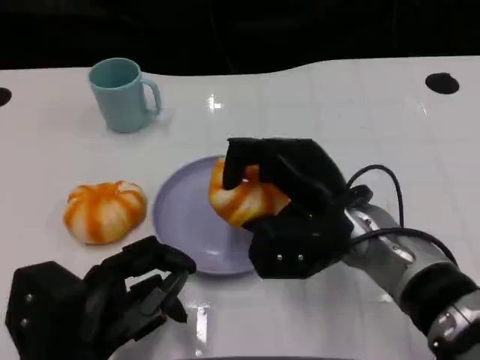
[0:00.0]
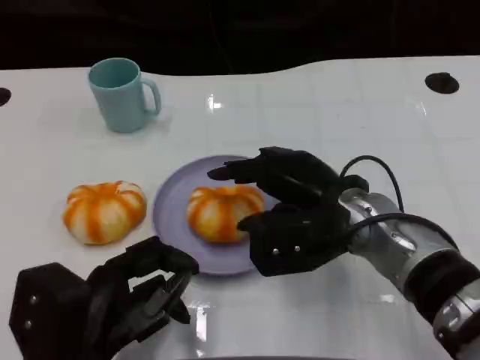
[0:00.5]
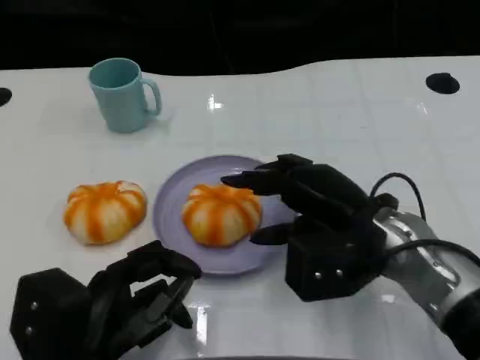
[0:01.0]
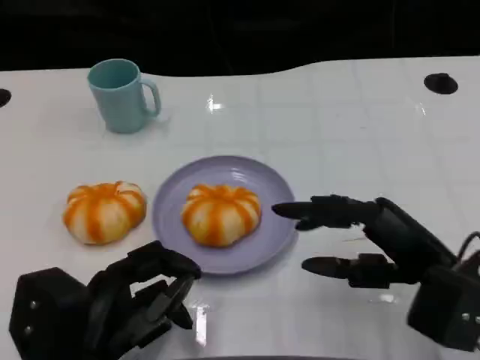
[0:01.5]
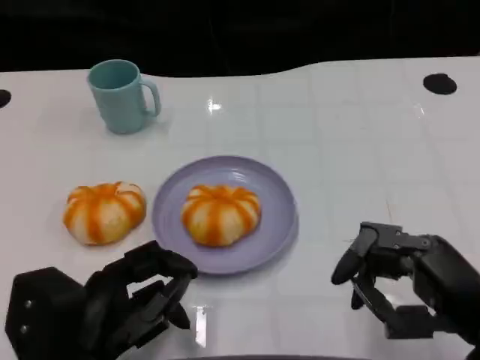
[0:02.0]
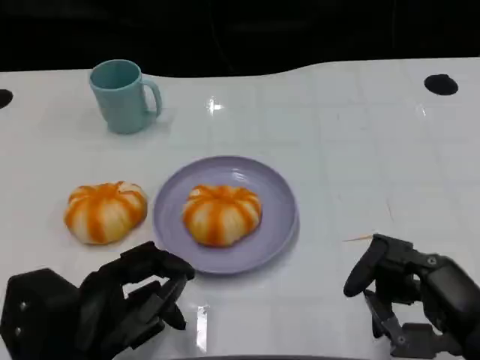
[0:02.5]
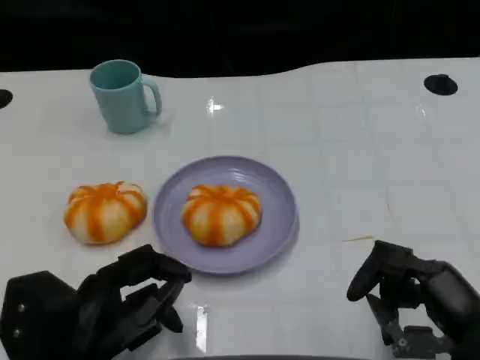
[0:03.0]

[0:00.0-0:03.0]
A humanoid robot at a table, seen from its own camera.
Task of the whole recording: Grasp the bread from the table and place it into the plate.
0:00.0 to 0:01.5: The right hand moves to the right and backward, some 15 cm.
0:01.5 to 0:03.0: The right hand is displaced backward by approximately 5 cm.
